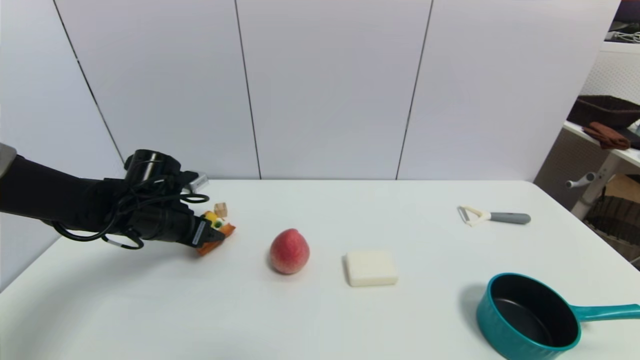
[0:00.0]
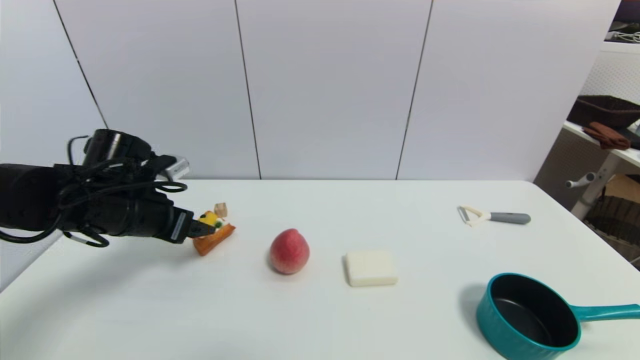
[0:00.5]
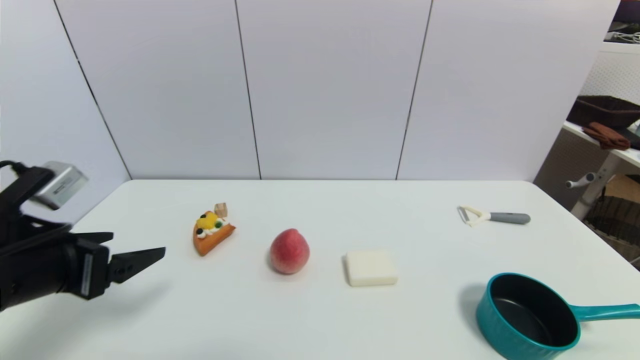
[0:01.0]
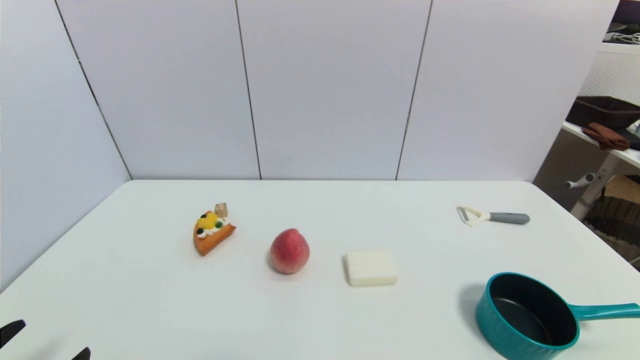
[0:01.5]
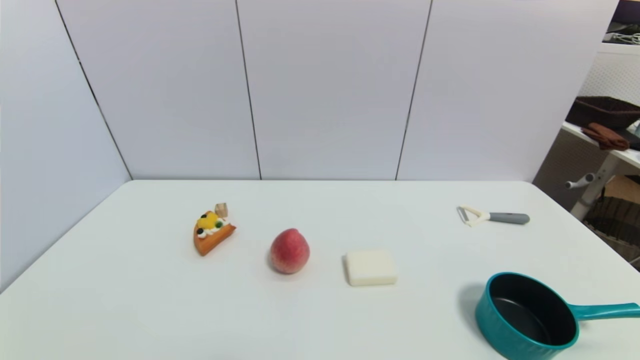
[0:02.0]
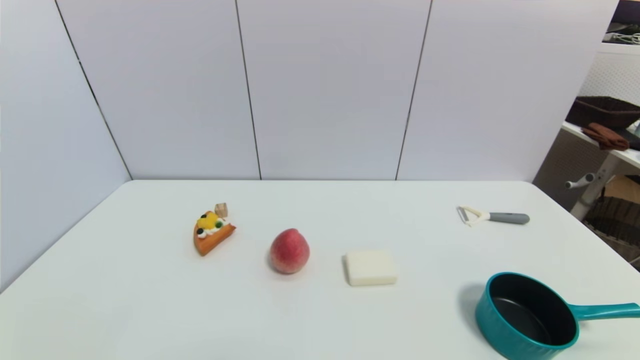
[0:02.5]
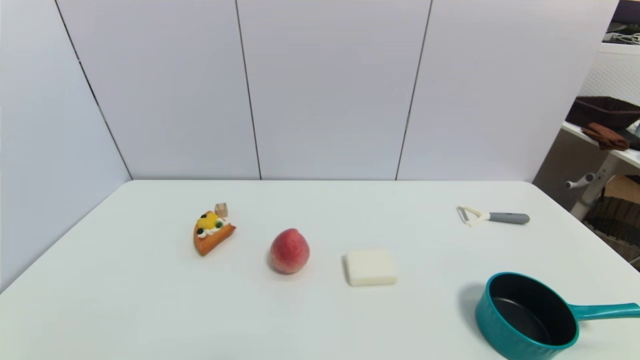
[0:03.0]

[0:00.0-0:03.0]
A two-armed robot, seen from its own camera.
0:00.0 to 0:01.5: The left gripper goes some 30 cm backward, and opens up.
